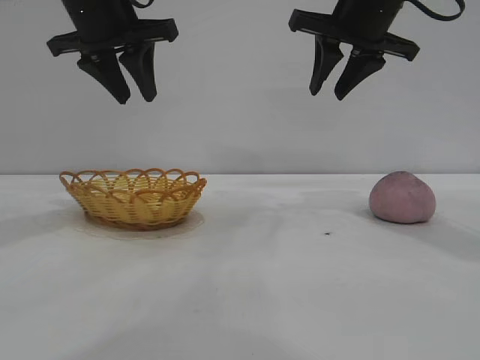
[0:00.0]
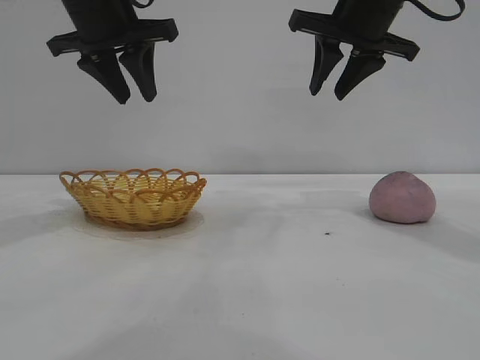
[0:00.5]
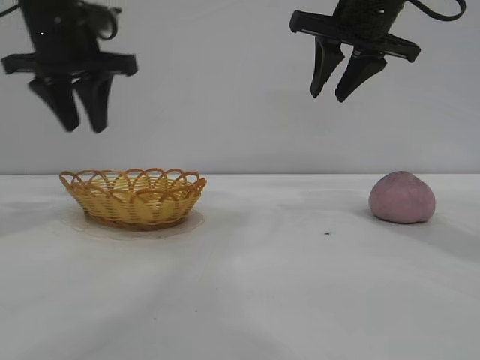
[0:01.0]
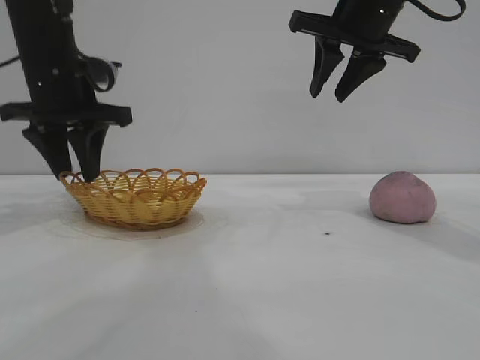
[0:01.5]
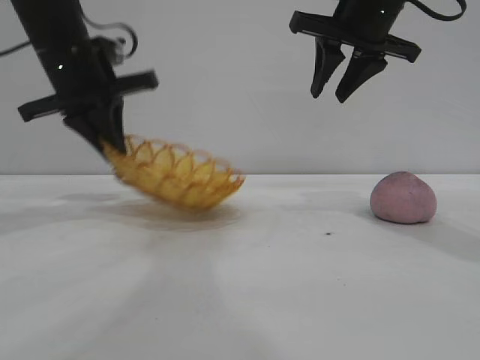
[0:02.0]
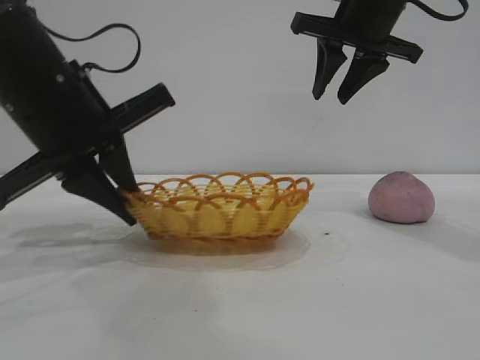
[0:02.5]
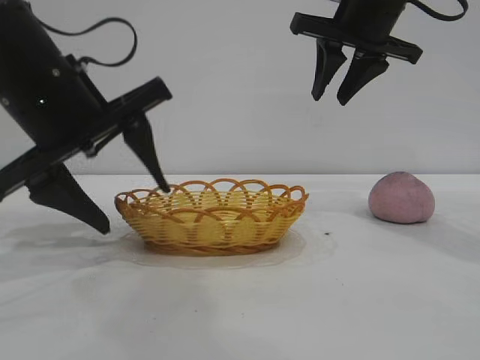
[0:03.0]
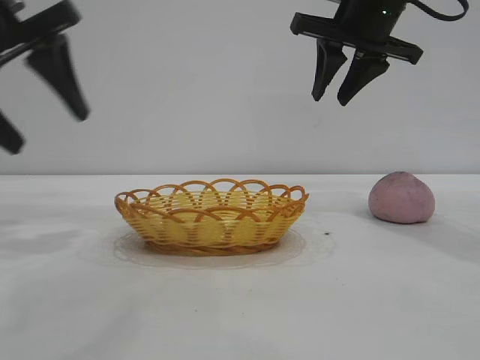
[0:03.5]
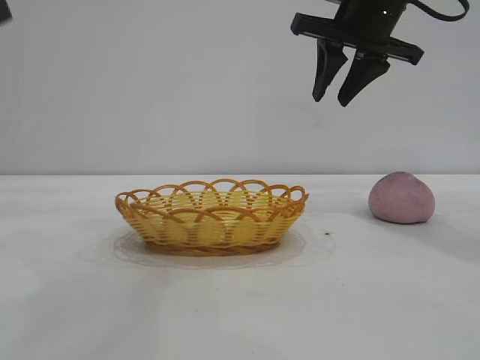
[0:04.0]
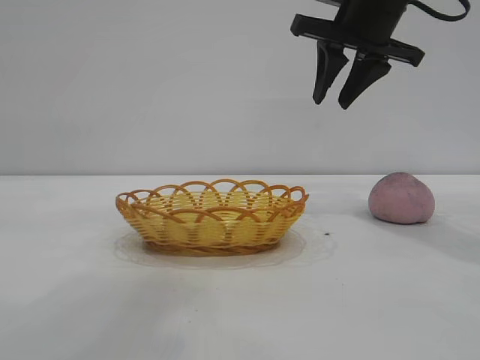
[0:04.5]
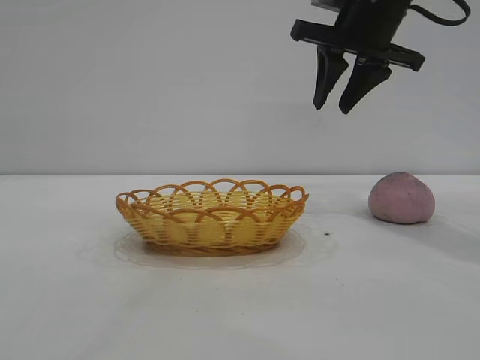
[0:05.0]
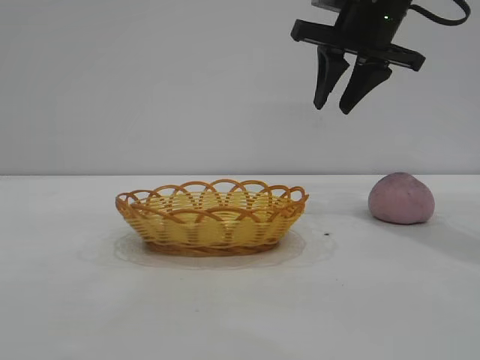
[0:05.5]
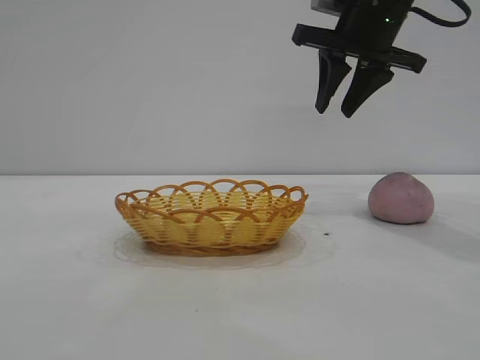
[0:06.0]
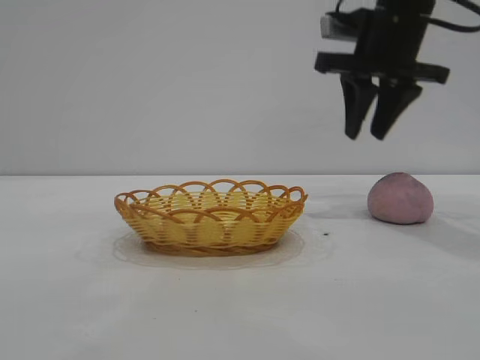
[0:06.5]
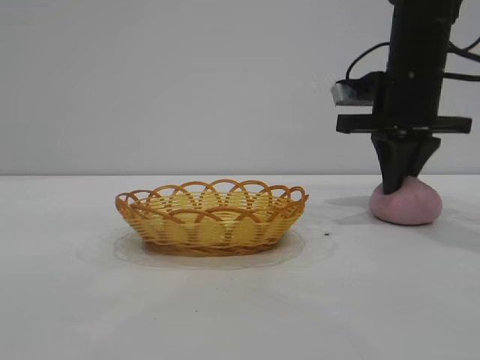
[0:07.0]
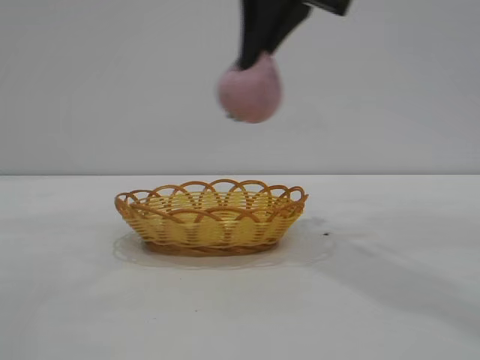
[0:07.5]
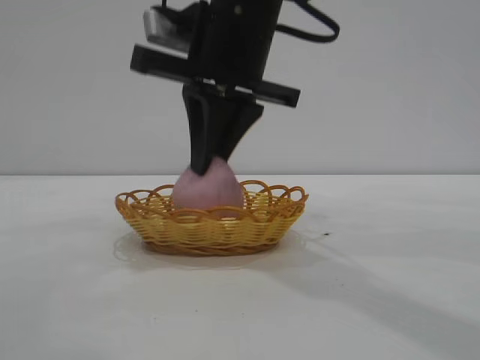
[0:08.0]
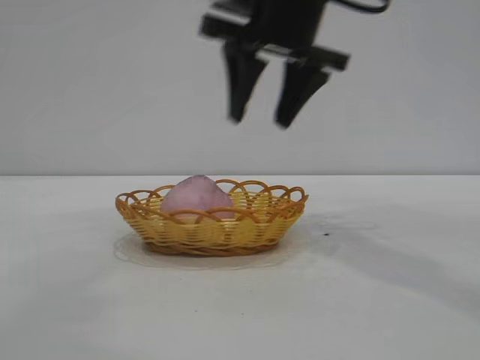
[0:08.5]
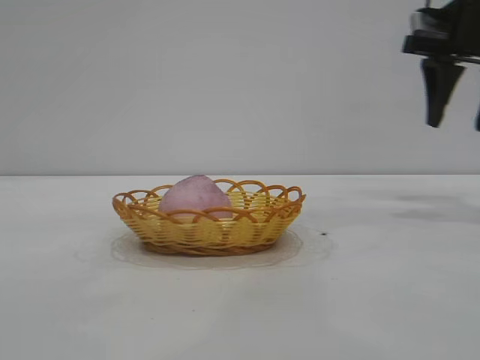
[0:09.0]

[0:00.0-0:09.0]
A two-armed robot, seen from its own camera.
Task of the whole recording: pick up the peach and put it into the basket.
Step, 0:00.0 to 0:03.0: Move the basket to the center of view.
Step, 0:03.5 to 0:07.0: Pick up the peach.
Step, 0:07.5 to 0:08.5: place the peach into the basket.
